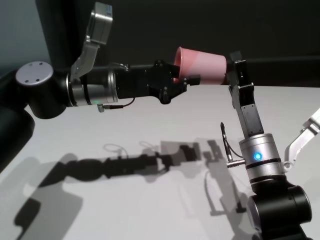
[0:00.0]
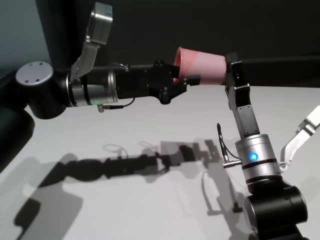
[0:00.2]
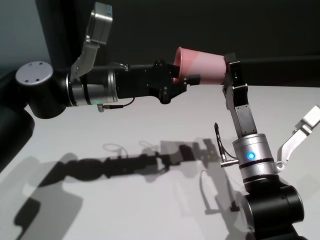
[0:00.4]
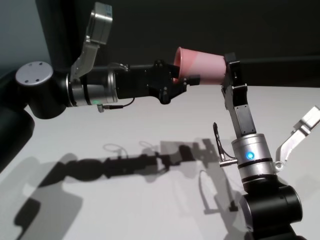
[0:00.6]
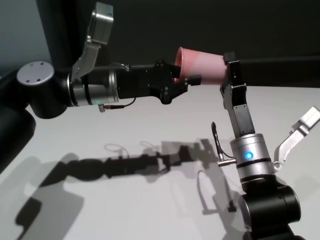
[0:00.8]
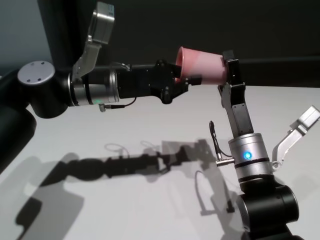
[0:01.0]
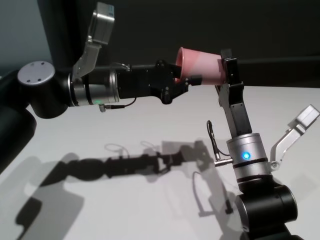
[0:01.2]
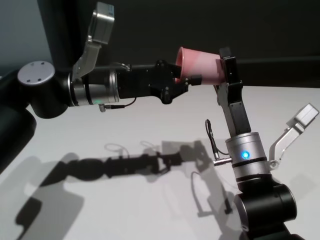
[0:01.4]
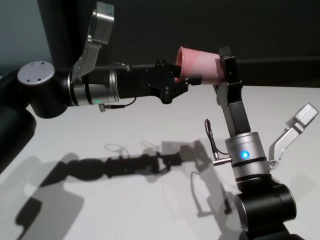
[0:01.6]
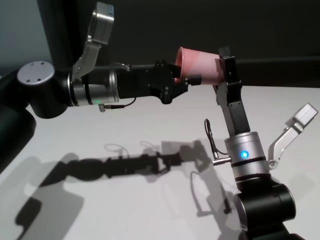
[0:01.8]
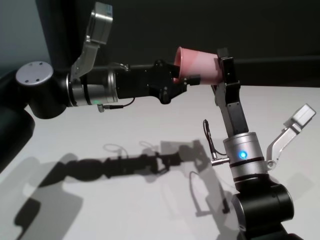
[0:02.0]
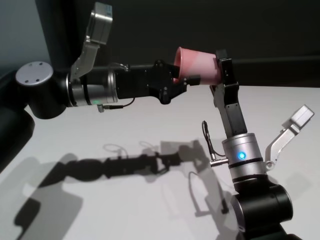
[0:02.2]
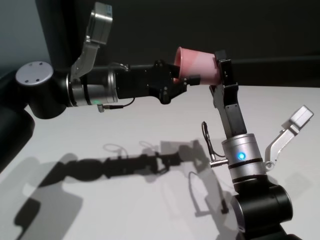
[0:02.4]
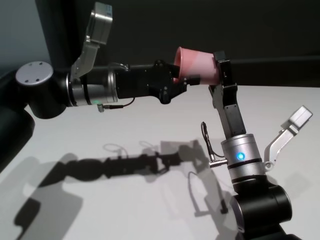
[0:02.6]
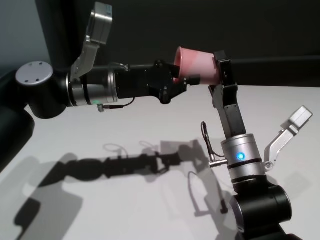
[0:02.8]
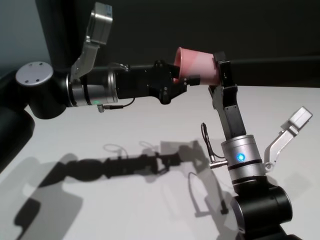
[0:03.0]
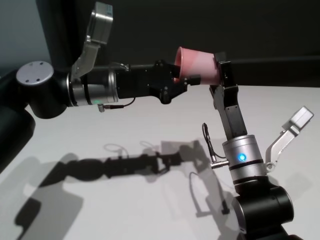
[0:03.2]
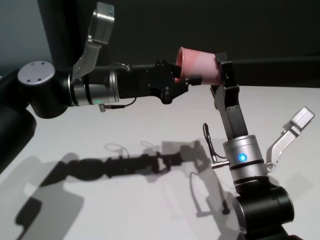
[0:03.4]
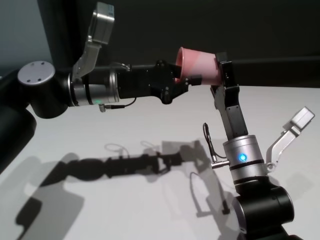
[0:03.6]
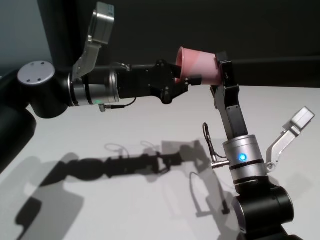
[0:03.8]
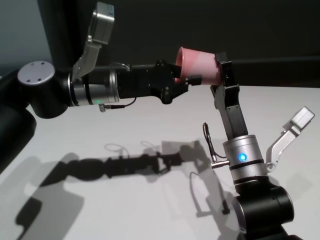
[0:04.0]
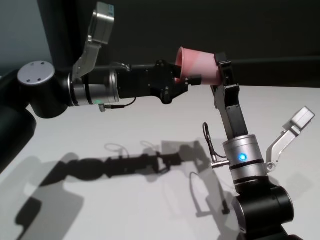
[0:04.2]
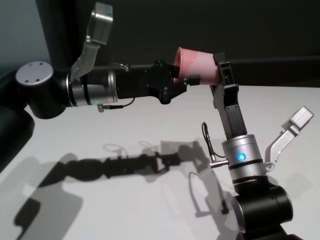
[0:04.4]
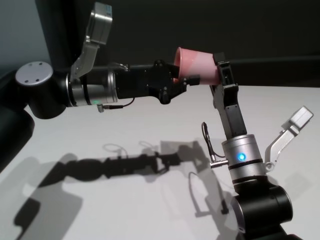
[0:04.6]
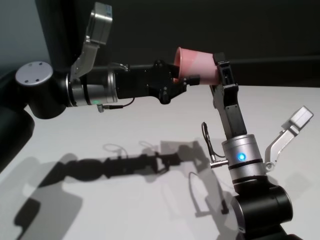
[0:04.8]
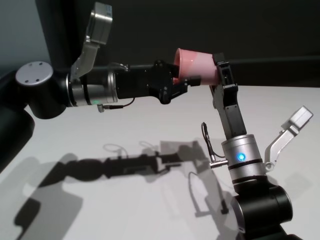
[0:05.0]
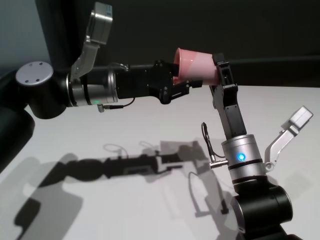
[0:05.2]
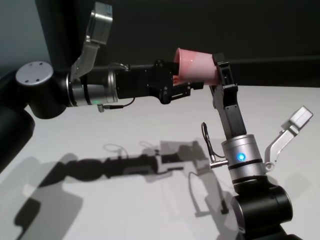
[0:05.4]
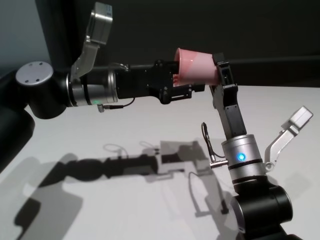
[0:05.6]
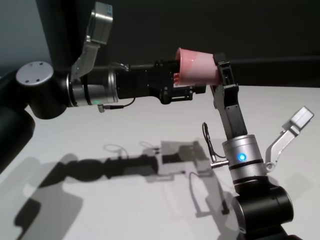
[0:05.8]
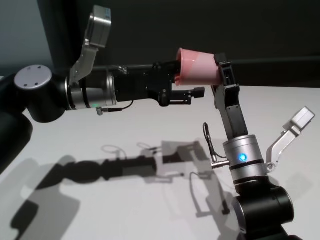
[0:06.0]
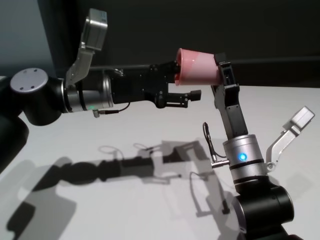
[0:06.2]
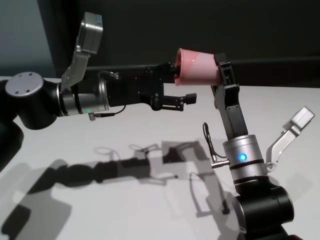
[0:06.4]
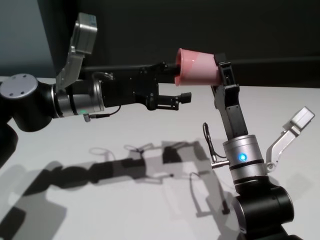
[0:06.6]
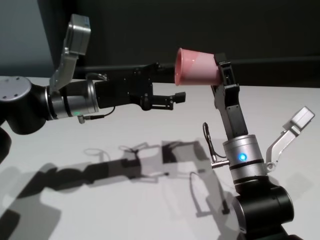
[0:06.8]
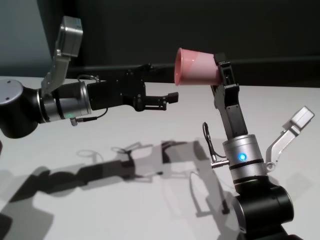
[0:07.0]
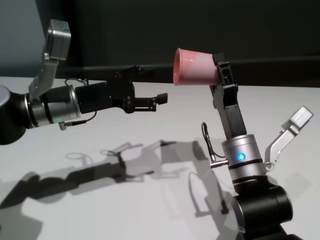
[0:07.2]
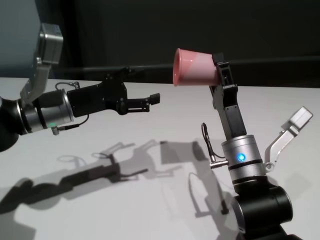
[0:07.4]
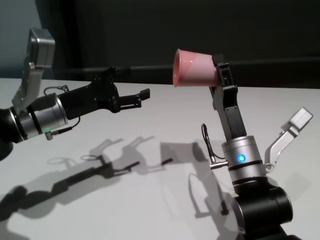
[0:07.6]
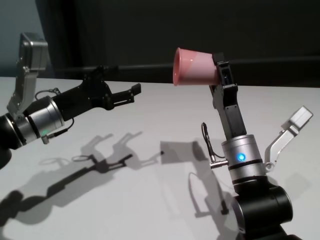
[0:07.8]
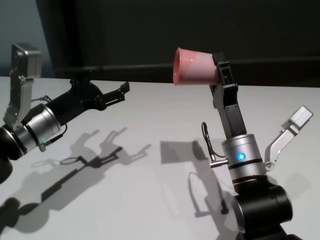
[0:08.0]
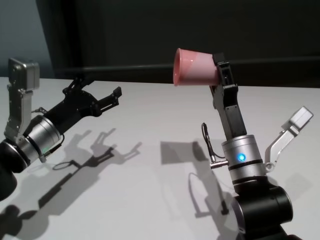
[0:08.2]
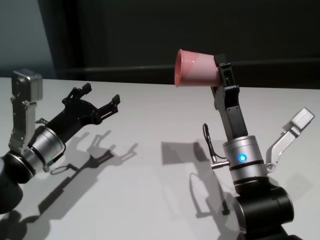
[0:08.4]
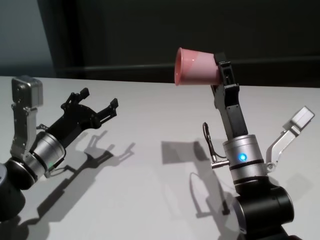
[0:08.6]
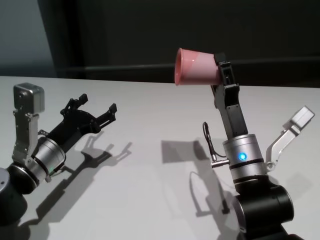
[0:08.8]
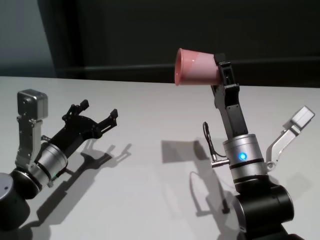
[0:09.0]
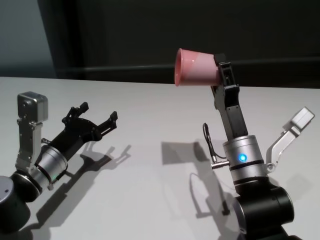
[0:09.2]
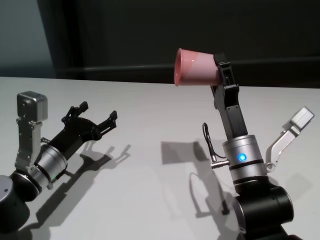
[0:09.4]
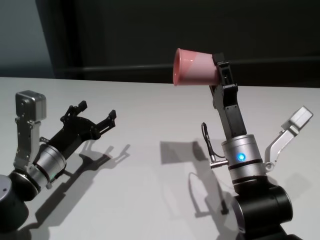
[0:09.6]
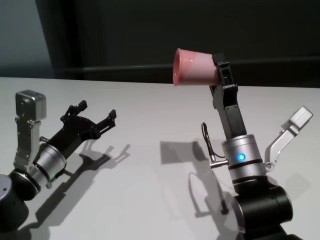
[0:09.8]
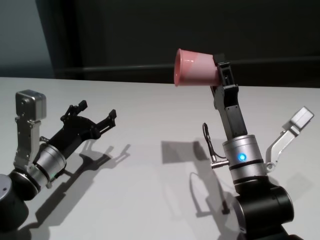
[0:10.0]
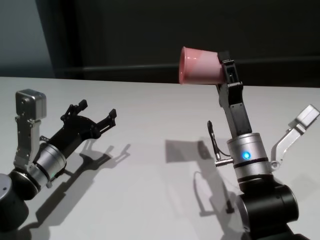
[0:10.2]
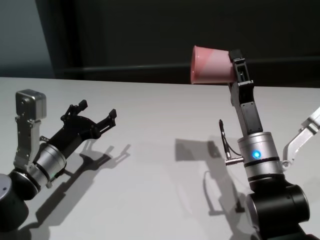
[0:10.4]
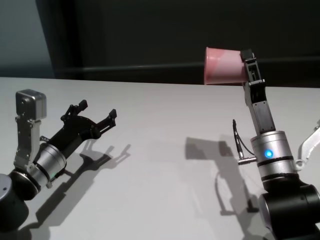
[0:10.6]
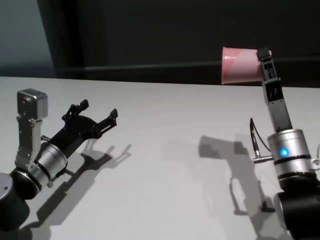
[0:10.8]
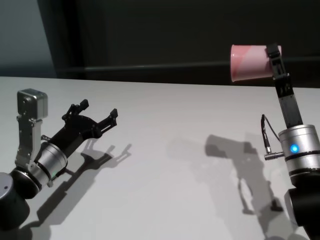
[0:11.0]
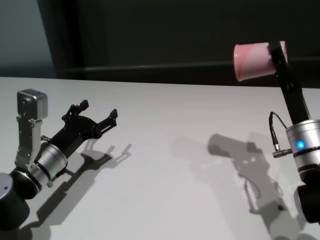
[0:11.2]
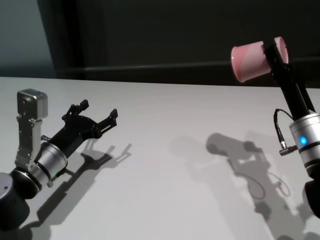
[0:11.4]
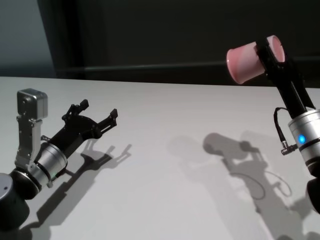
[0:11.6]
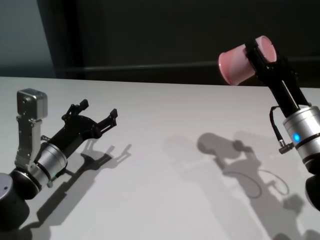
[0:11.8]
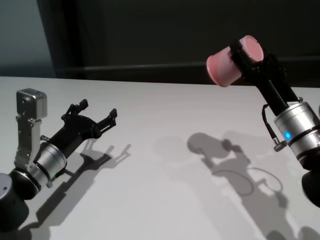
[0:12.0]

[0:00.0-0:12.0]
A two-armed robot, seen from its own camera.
Task of the whole recording: On the white table pick up the cup with one hand and transfer it to the other hand before turning it over.
Step, 0:00.0 to 0:06.8: Pass the cup to the right gripper.

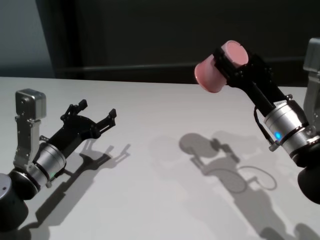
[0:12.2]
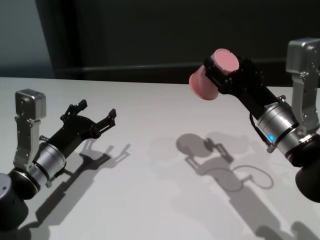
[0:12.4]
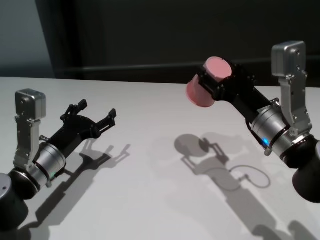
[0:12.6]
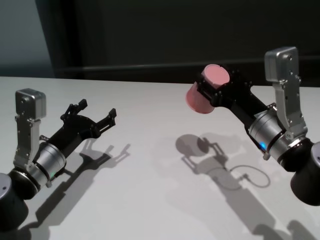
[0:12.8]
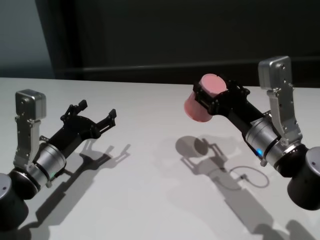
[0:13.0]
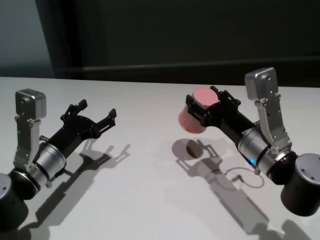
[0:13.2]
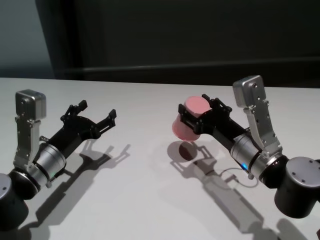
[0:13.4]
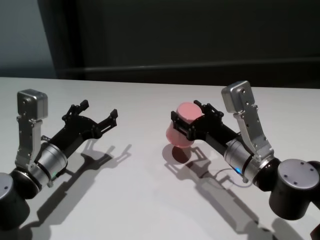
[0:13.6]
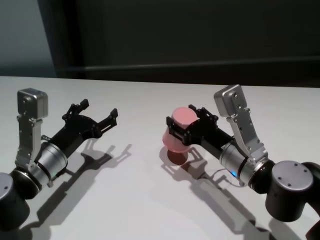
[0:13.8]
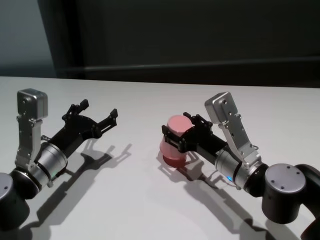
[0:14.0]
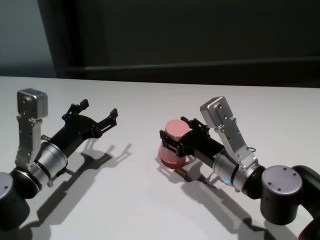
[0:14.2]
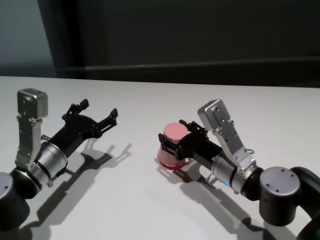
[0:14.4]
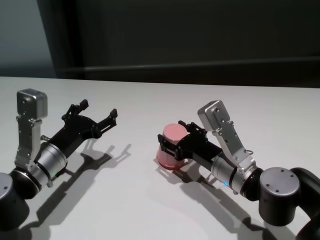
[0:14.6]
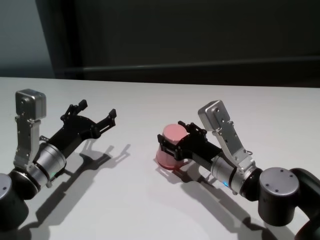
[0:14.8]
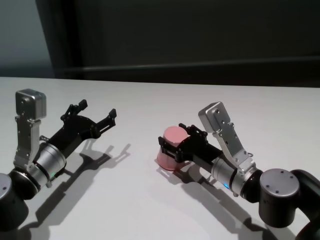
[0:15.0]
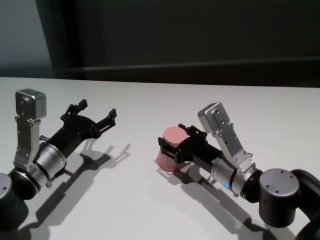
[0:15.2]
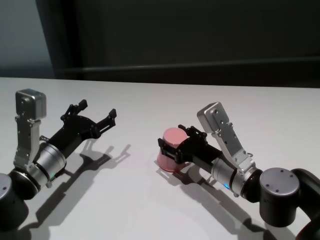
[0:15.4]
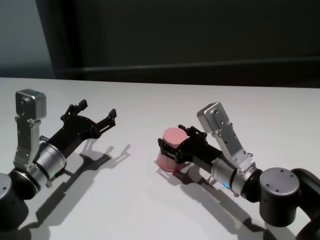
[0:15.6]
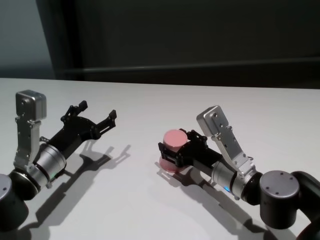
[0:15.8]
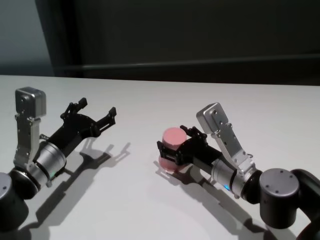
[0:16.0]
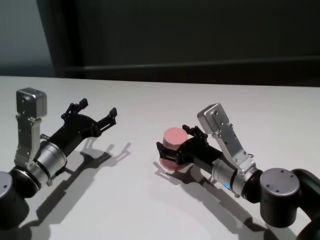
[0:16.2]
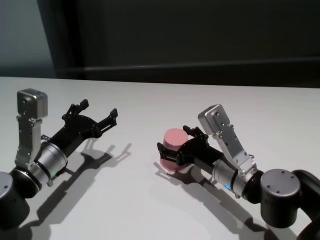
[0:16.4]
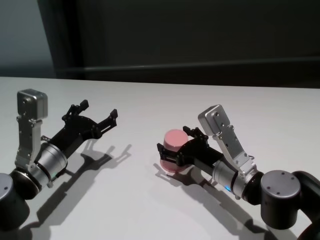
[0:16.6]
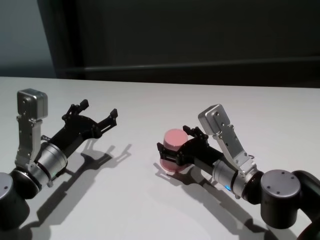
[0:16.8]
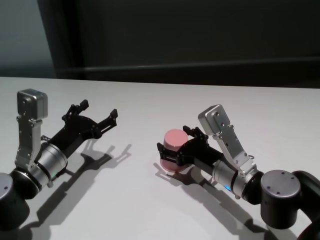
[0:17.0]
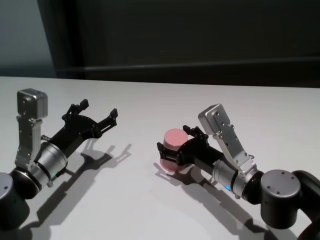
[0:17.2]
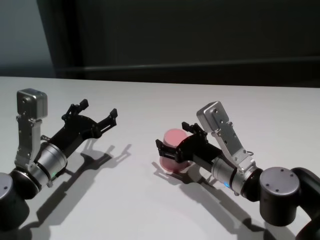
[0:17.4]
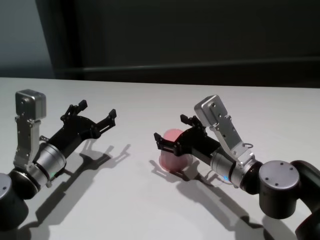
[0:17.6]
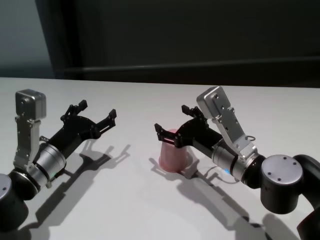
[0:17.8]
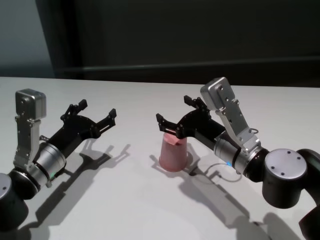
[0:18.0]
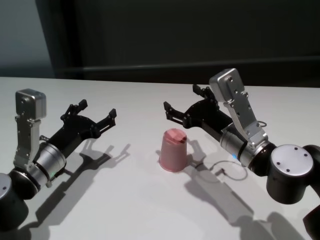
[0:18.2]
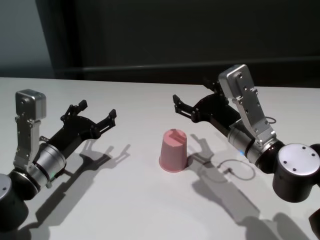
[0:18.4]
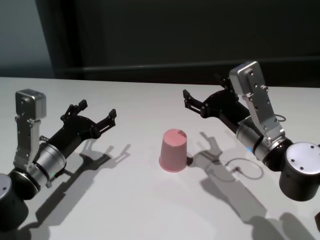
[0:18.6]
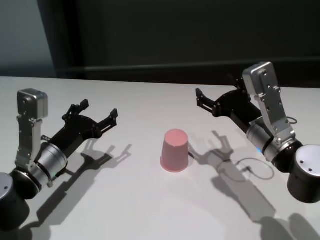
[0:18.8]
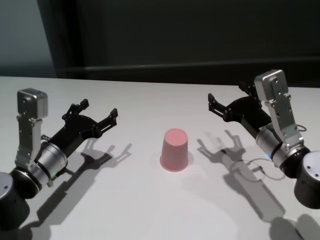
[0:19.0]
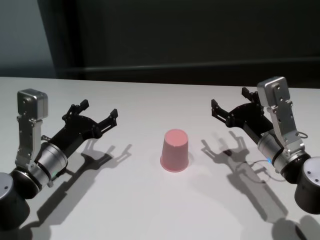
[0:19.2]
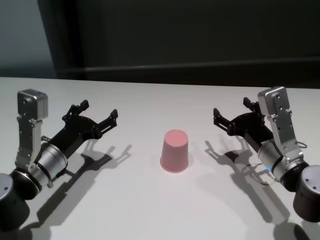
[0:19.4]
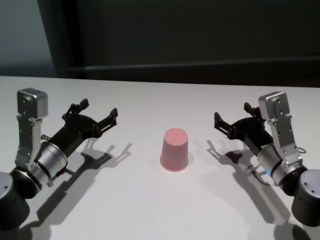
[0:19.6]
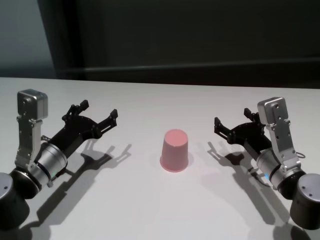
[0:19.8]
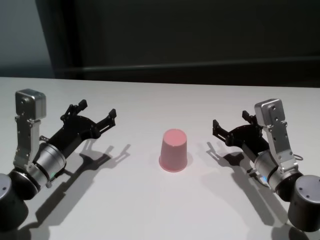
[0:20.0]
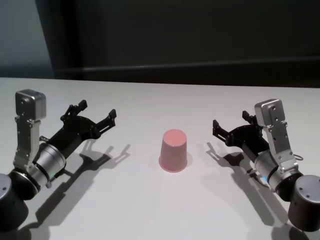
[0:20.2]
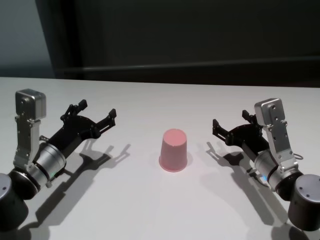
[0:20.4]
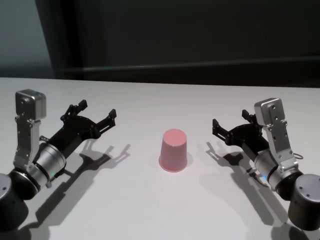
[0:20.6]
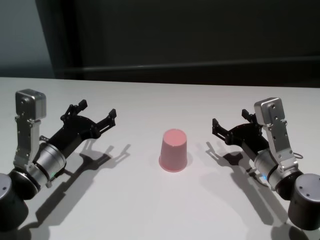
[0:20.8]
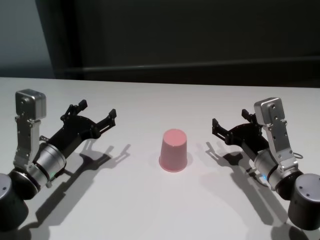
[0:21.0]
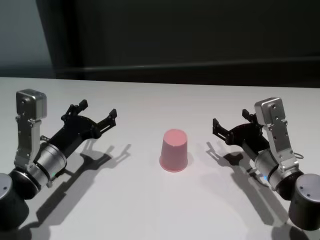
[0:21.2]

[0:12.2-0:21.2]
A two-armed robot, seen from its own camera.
Task of the whole recording: On the white table pick up the cup with one hand and transfer it to the other hand before turning it over.
Step, 0:12.2 to 0:16.8: Place the cup on the table with right gripper.

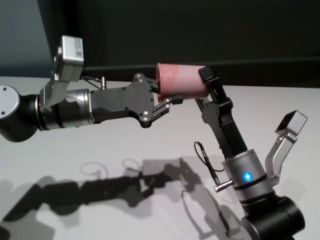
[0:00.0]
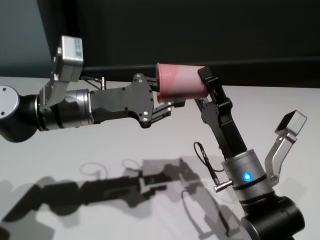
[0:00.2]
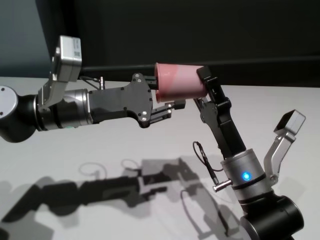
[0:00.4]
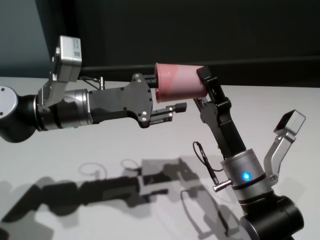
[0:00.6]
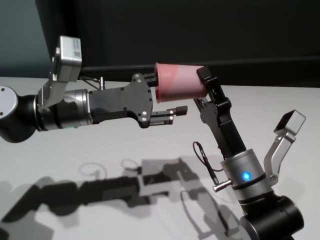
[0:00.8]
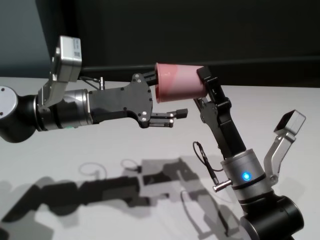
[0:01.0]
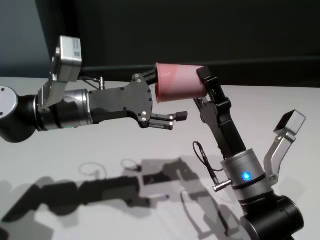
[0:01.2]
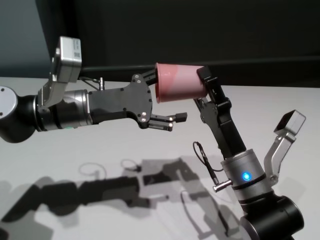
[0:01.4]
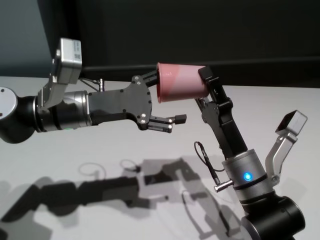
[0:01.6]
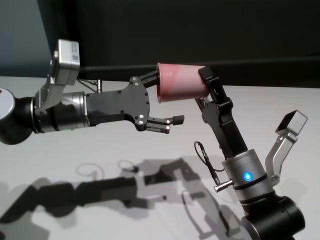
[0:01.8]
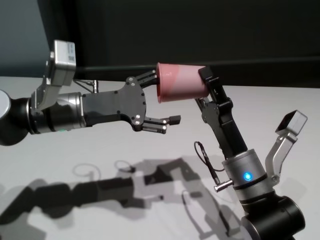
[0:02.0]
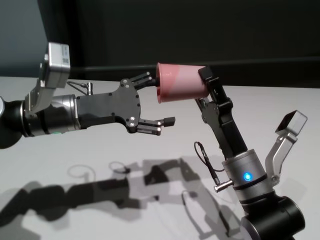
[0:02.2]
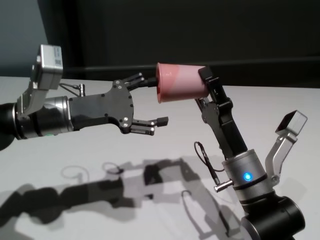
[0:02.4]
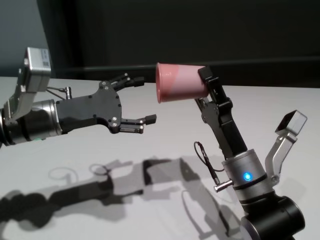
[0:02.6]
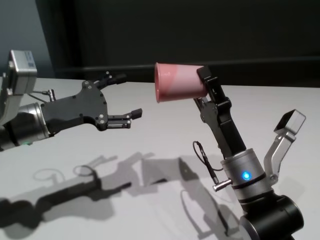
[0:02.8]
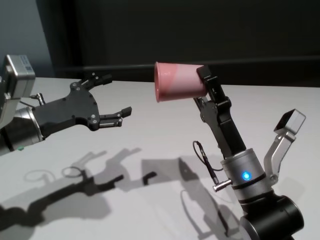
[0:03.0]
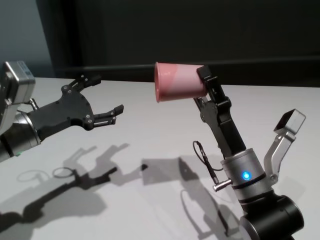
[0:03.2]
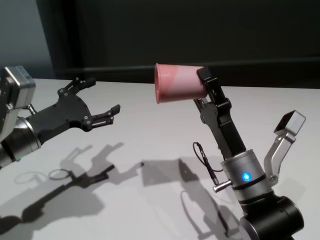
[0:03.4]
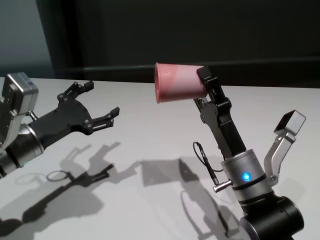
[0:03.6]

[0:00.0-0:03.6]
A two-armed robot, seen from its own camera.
Task of the whole recording: On the white table pick up the cup with one hand and transfer it to the other hand before turning it over.
Step, 0:00.0 to 0:02.4: Pass the cup to the right gripper.
